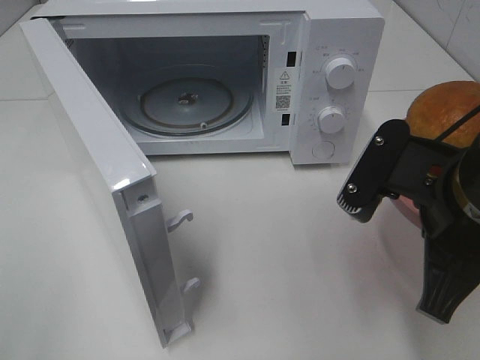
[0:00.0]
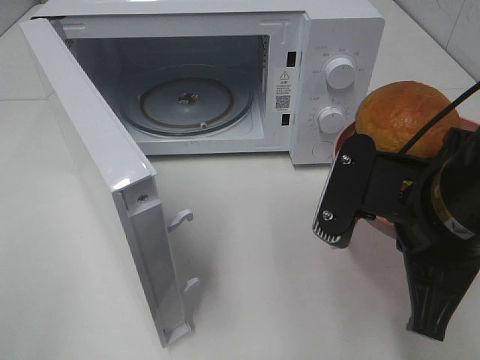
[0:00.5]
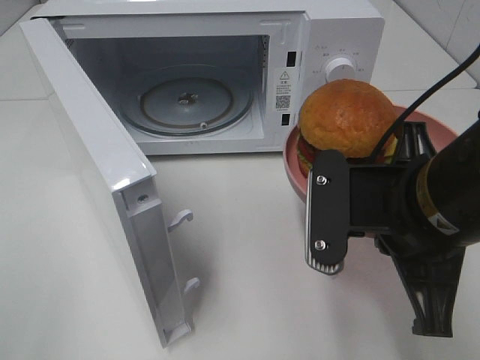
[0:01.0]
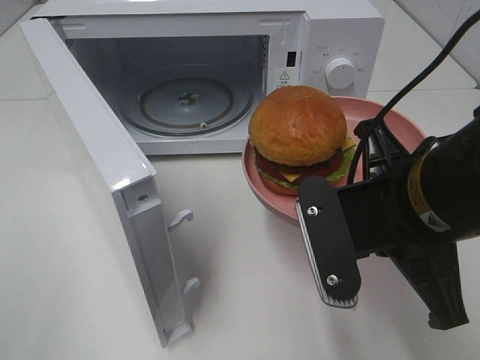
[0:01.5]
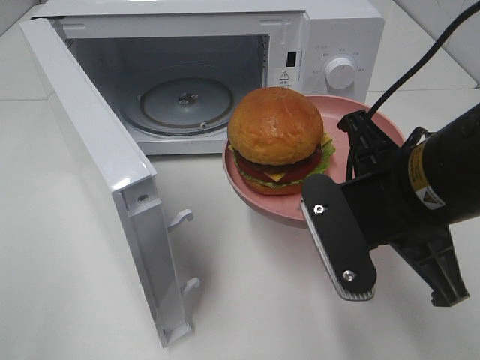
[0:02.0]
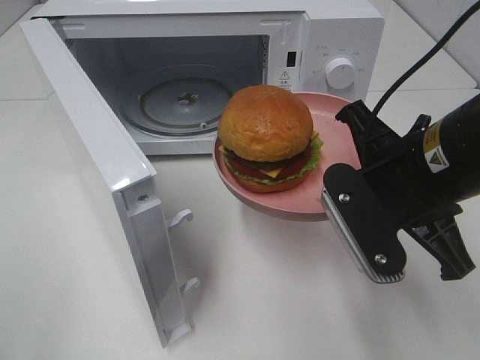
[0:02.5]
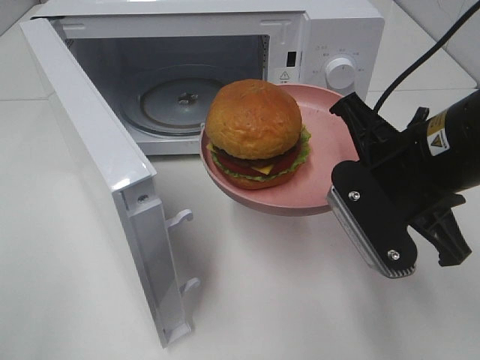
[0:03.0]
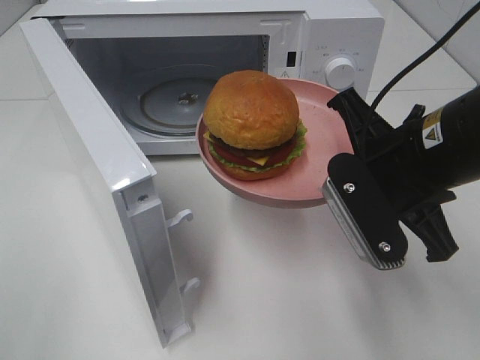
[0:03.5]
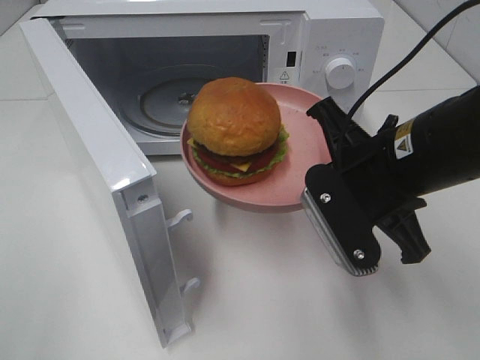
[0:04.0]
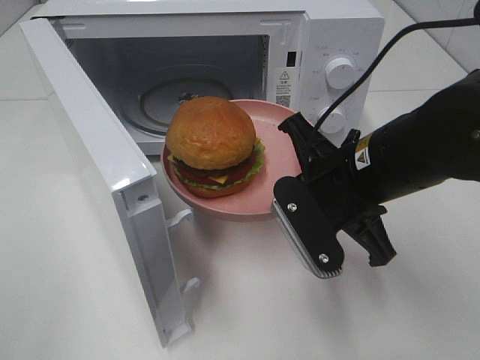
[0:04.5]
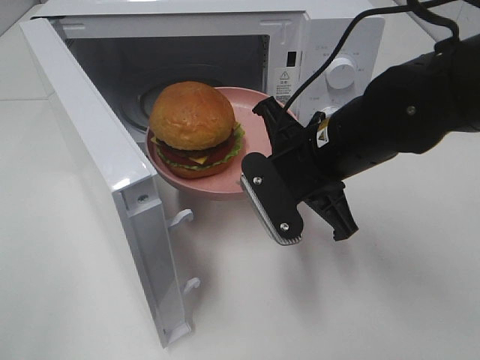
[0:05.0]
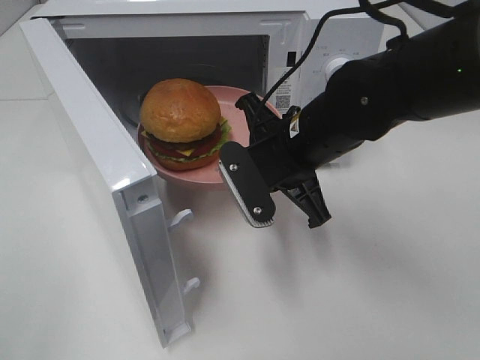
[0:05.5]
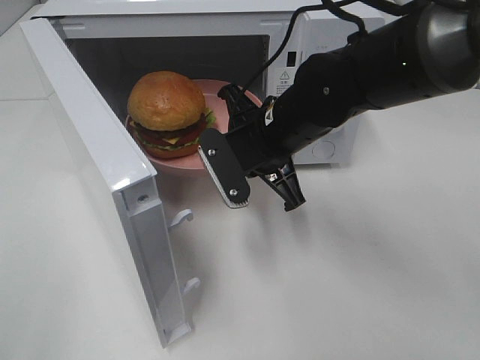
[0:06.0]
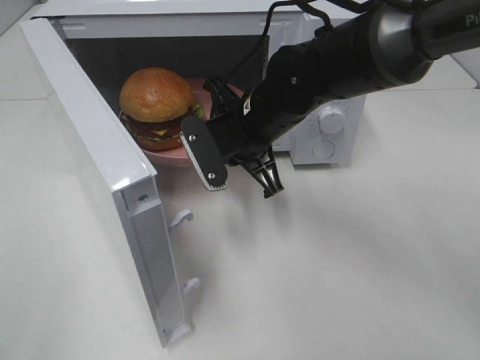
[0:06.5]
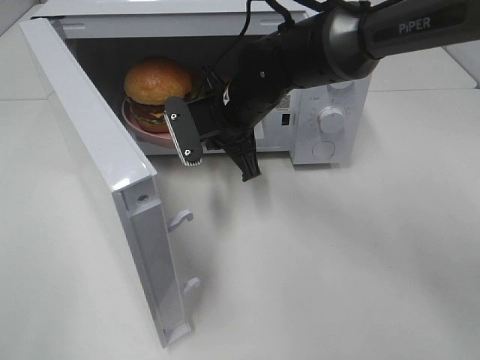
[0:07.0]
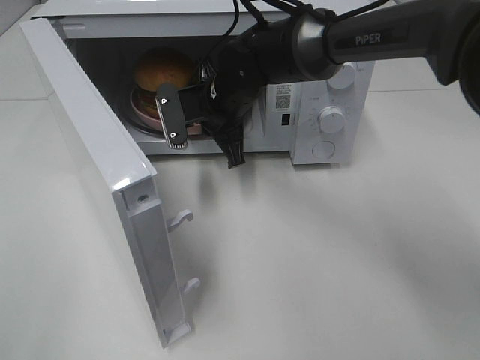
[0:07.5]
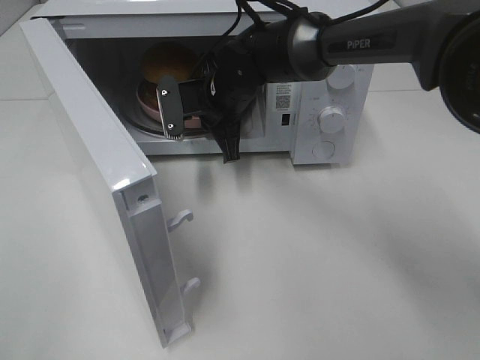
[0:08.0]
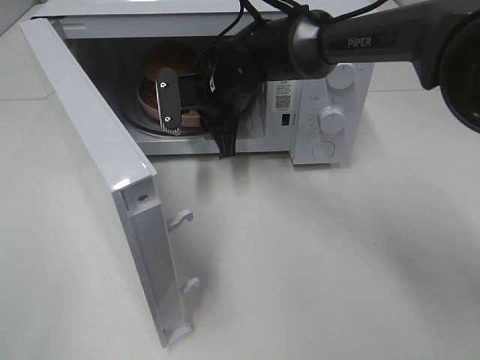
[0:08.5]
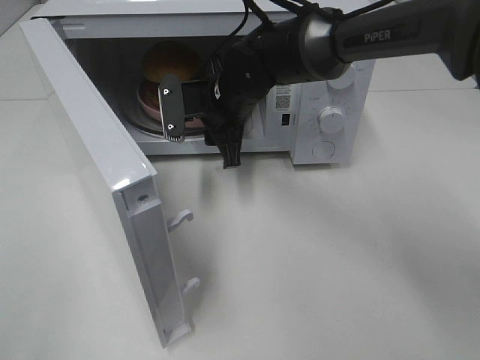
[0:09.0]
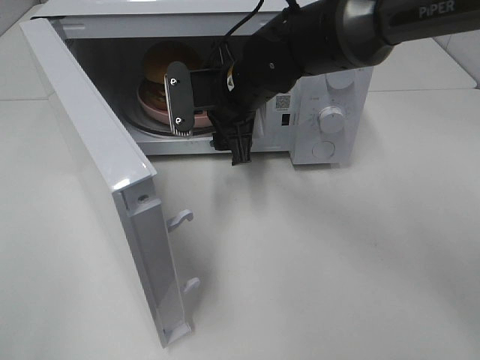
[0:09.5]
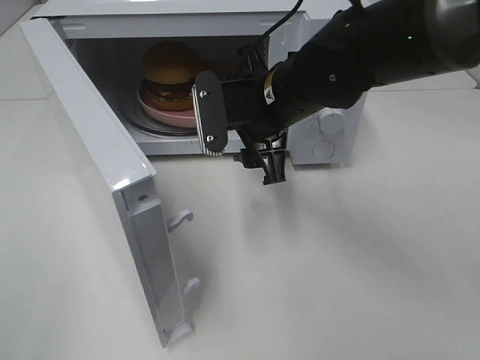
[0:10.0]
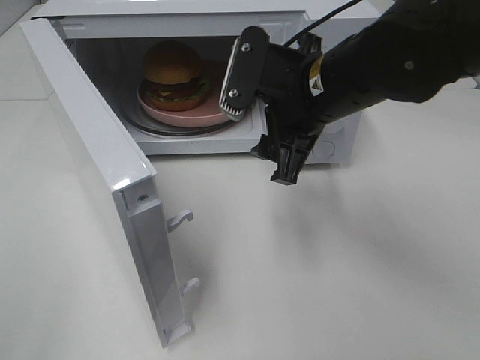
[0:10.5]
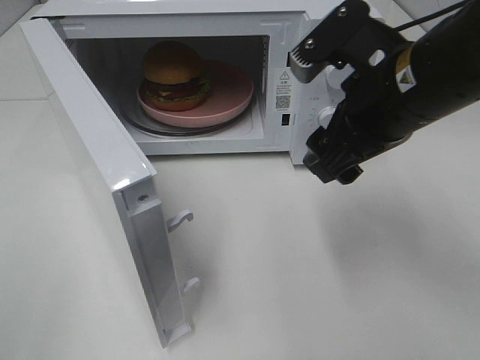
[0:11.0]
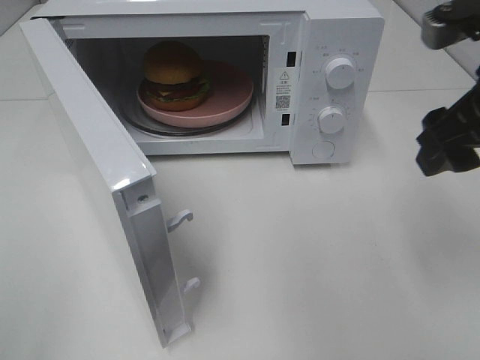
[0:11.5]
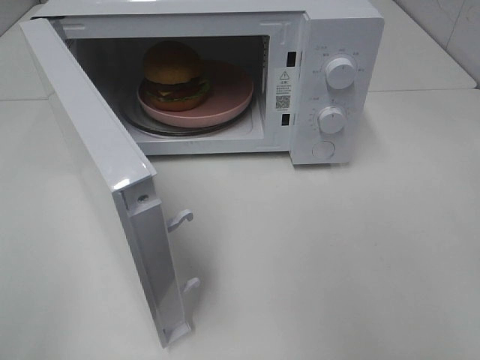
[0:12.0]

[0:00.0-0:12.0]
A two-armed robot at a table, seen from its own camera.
Task of the whole recording: Heat the burger.
Step, 0:00.0 to 0:08.5: Right hand: place the plate in the microwave.
0:02.0 to 0:04.0: The grippers move only a little.
0:04.0 to 0:06.0: The right gripper heads forward and to the left, covering some 15 cm.
0:06.0 to 0:08.0: The right gripper goes some 10 cm forward and to the left.
0:08.0 to 0:10.0: The right gripper is displaced backward and to the right by about 10 cm, and opens its fingers.
0:10.0 to 0:12.0: The right gripper moves to the right, backward and upward, some 30 cm.

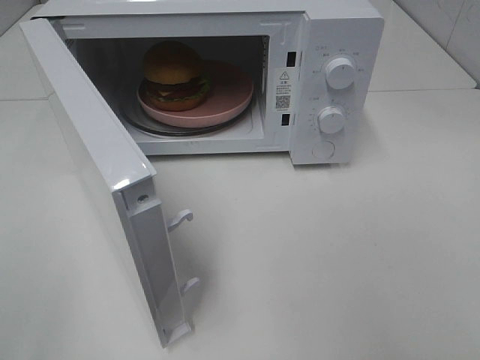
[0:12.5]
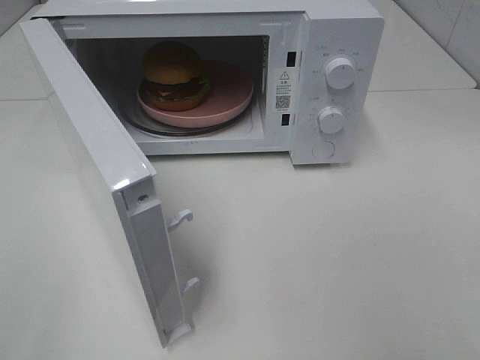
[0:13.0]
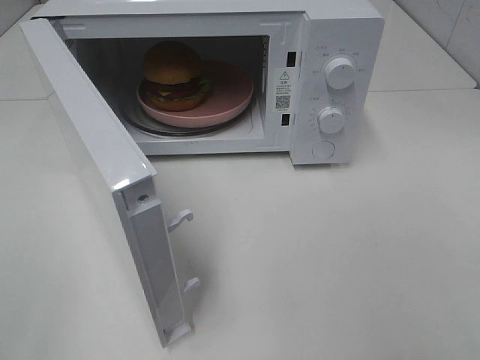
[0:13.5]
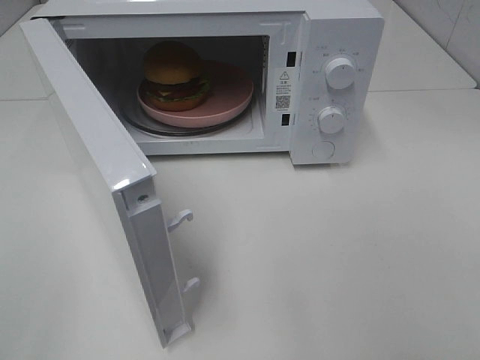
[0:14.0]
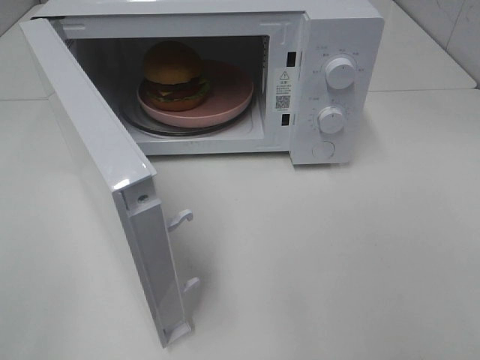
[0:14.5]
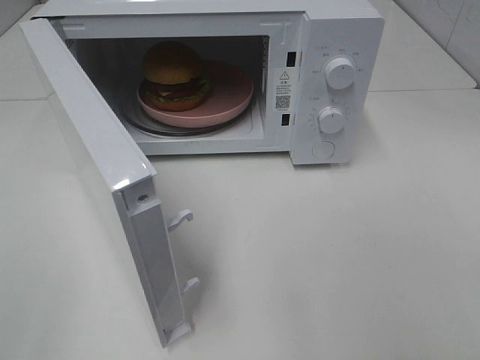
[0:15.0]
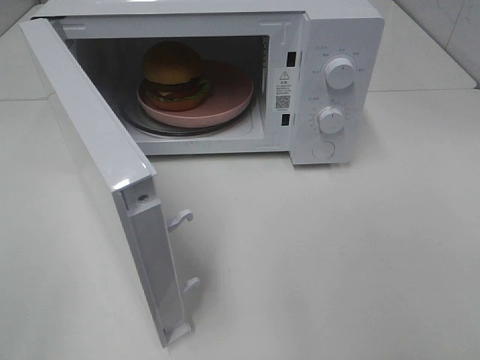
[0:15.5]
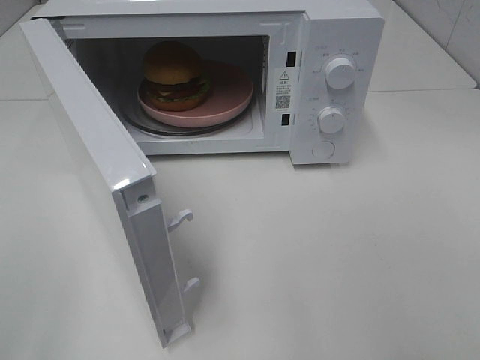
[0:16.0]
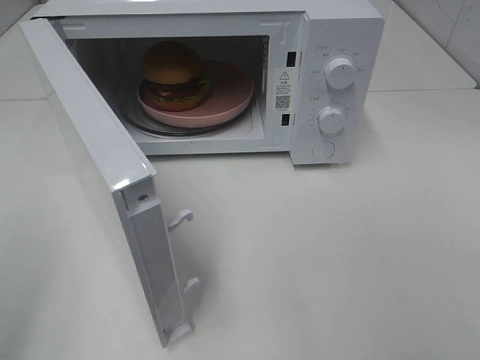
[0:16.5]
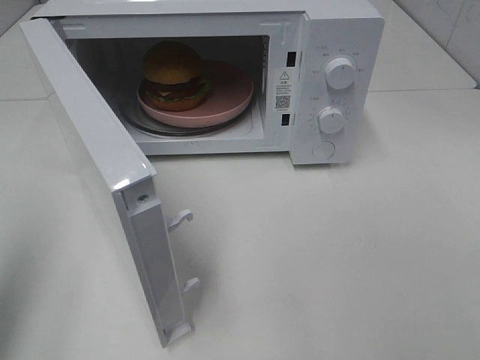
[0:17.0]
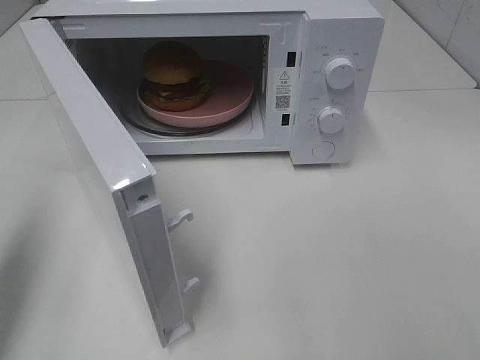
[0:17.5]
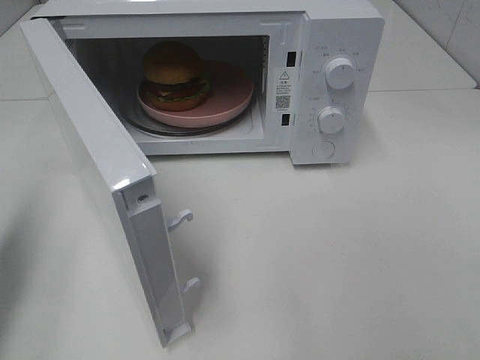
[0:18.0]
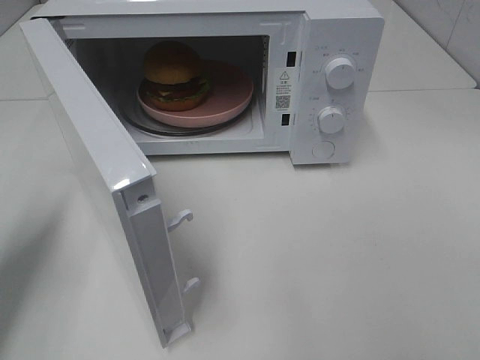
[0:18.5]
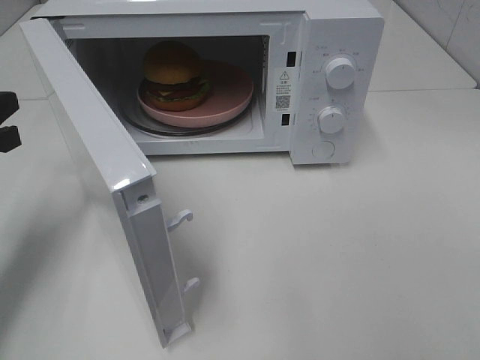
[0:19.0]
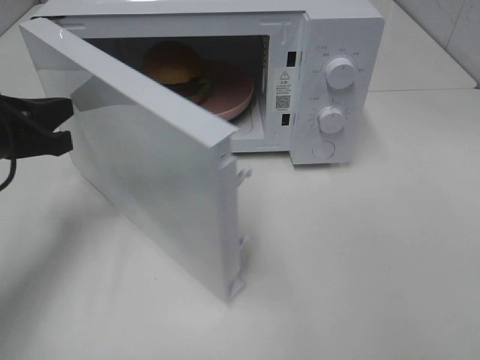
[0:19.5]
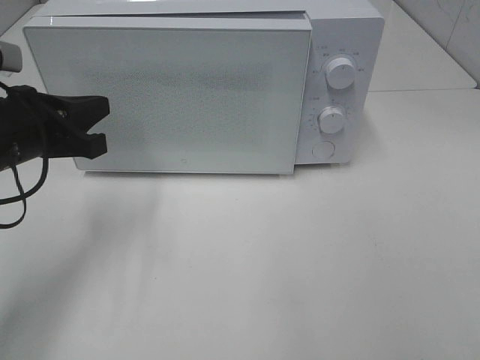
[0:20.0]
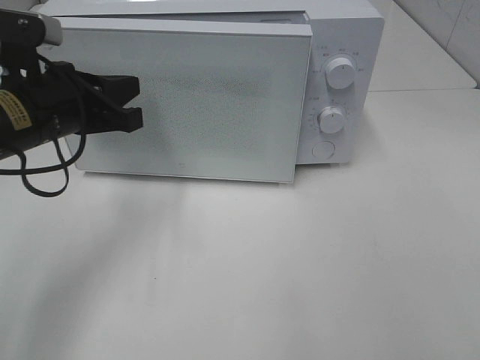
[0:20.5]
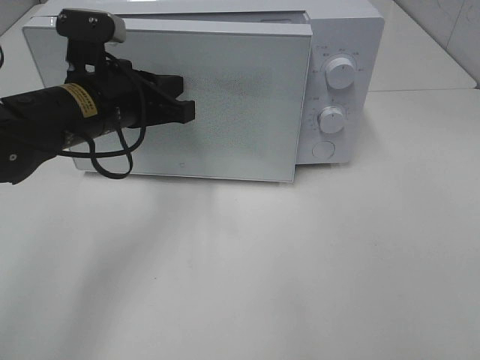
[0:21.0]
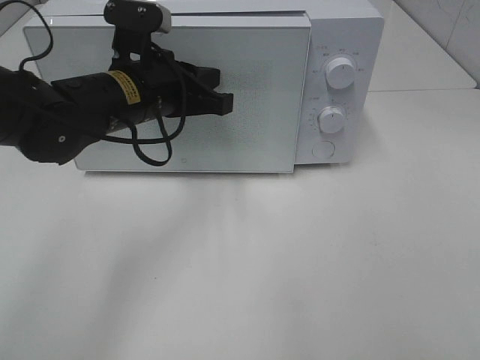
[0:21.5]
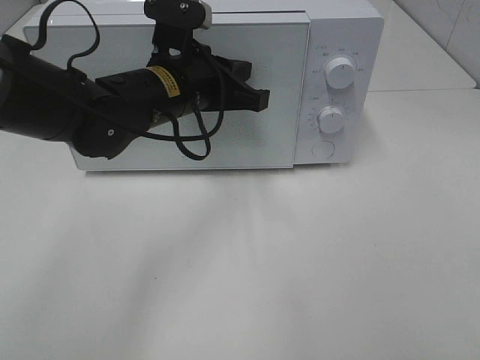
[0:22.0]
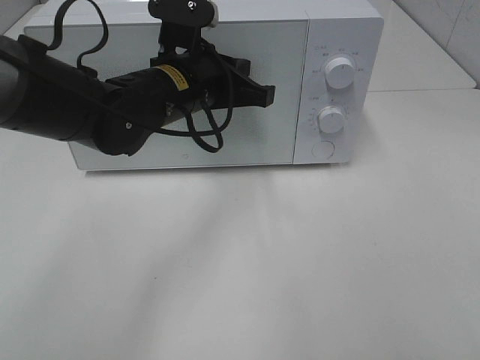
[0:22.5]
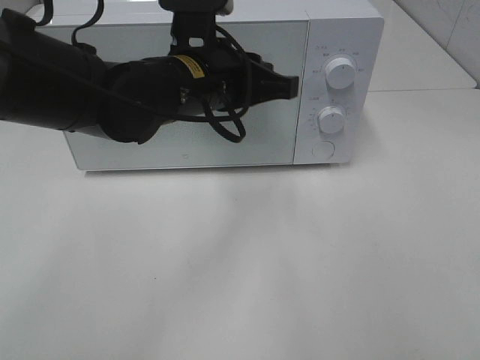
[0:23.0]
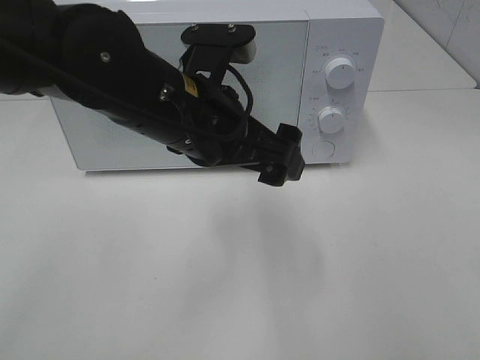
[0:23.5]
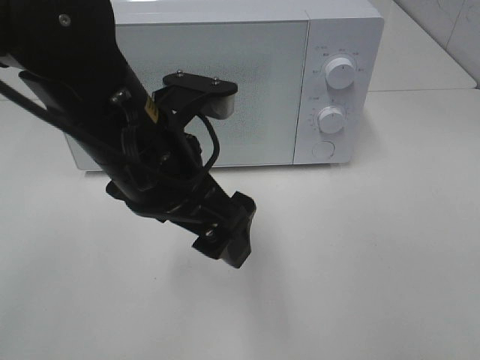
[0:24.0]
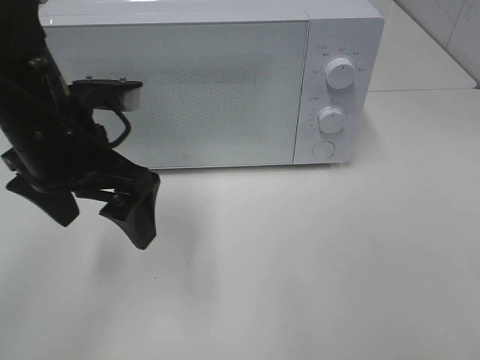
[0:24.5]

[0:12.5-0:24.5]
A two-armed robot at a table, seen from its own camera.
Task of the whole recording: Heat the burger.
Step, 0:12.5 to 0:22.5: Left hand: close the microwave door.
0:16.5 to 0:18.5: The left gripper goes about 20 cm forward and downward, and closes up.
0:18.5 to 0:20.5: The left gripper heads to the right and forward, covering about 15 cm.
0:20.5 to 0:22.5: The left gripper is displaced to the right and forward by approximately 15 cm.
0:22.5 to 0:24.5: The left gripper goes about 15 cm to the left and backward, and opens up.

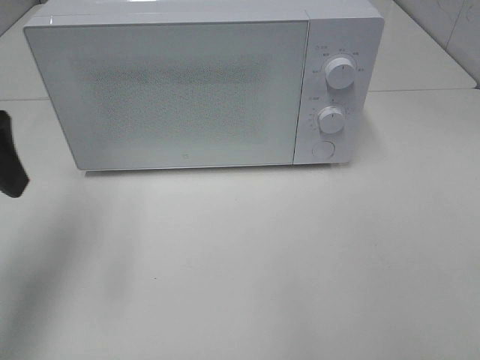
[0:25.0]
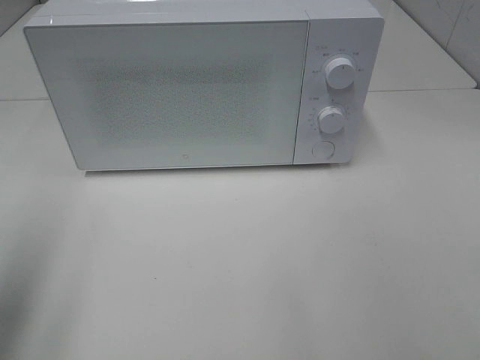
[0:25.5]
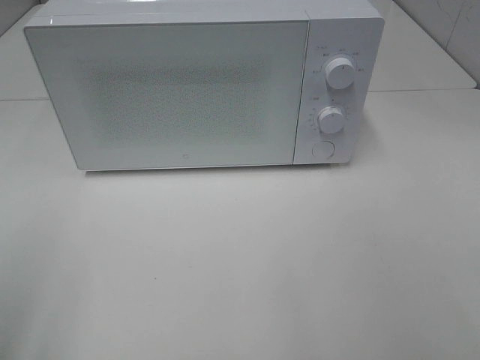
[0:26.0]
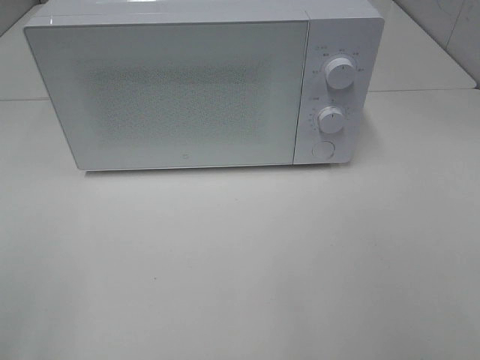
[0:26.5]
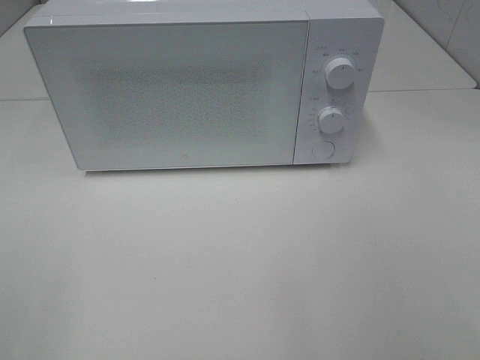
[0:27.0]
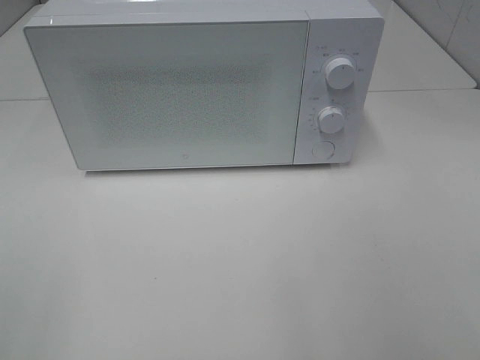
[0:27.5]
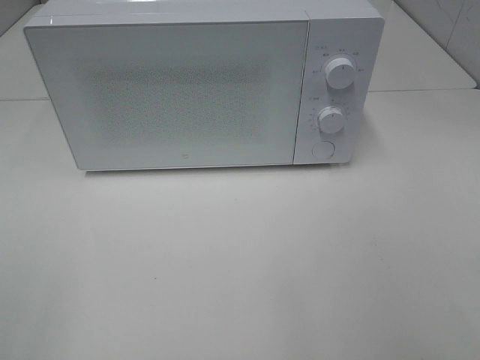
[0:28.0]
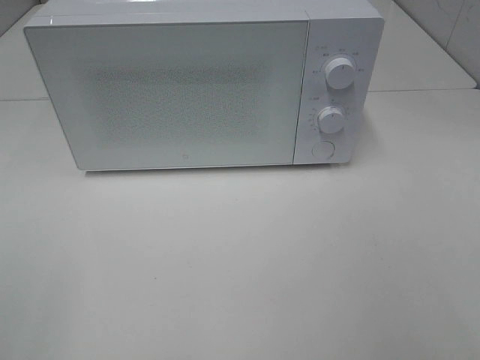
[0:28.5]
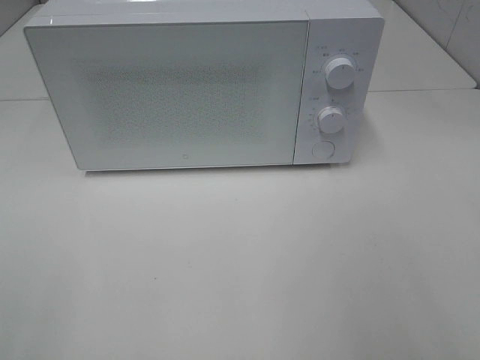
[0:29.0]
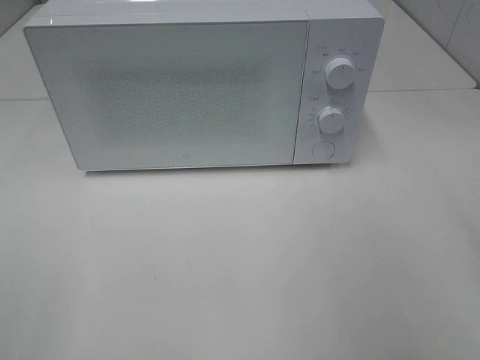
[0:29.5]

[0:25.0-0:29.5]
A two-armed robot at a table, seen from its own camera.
Task of the whole recording: Heat the burger.
0:25.0 to 0:27.0: The left gripper goes approximately 25 cm backward.
